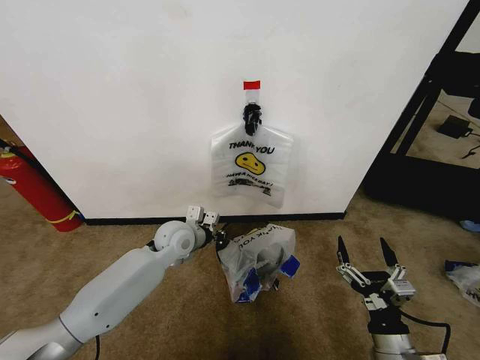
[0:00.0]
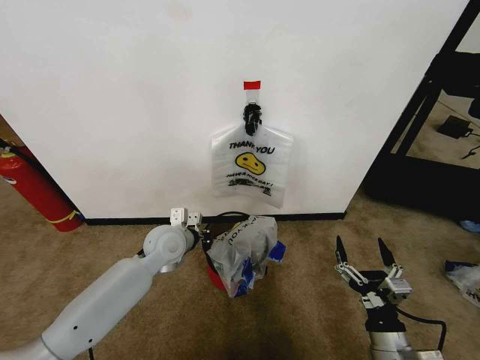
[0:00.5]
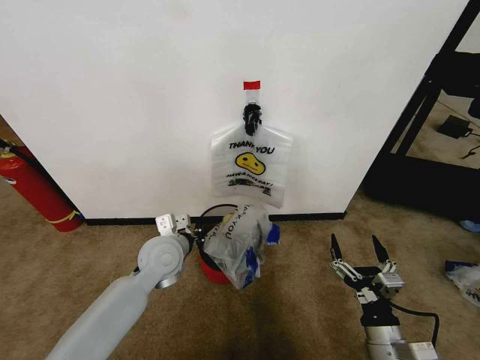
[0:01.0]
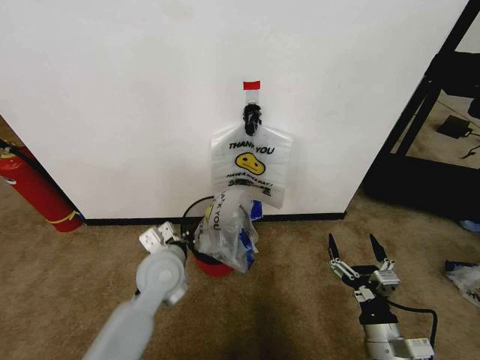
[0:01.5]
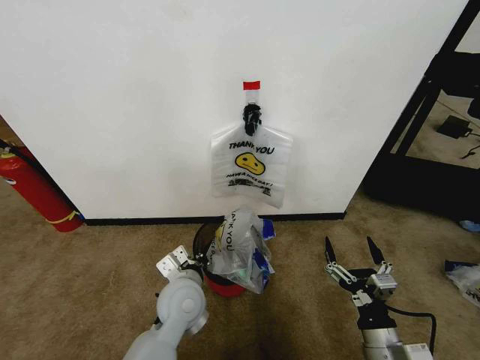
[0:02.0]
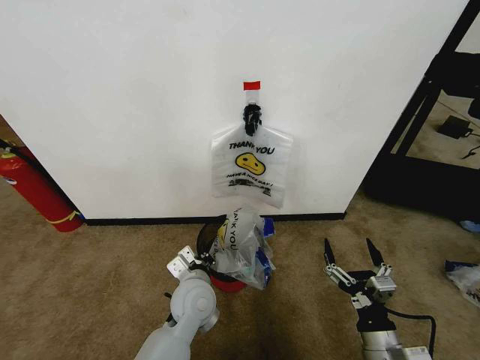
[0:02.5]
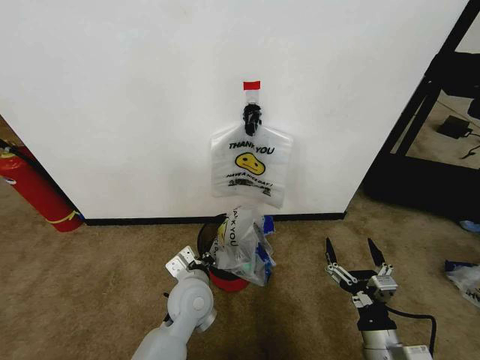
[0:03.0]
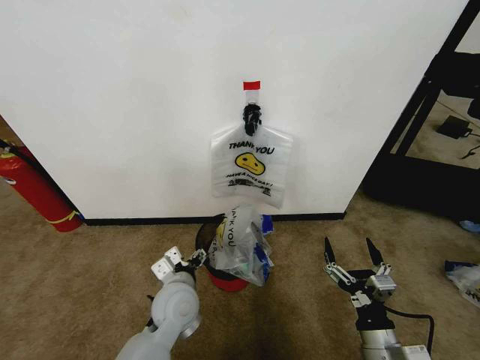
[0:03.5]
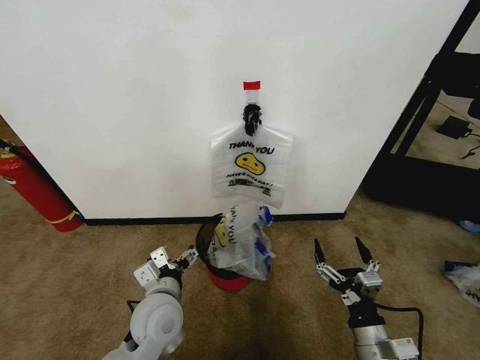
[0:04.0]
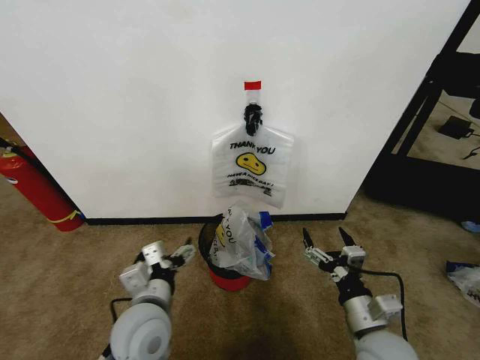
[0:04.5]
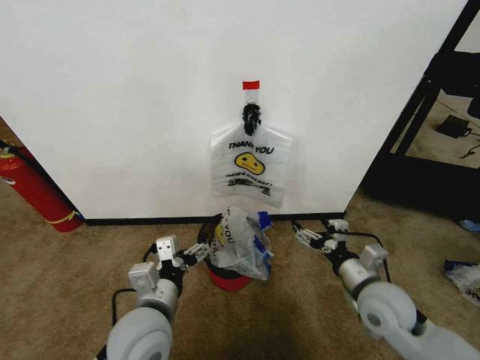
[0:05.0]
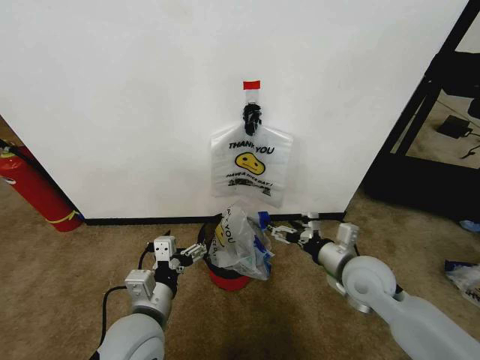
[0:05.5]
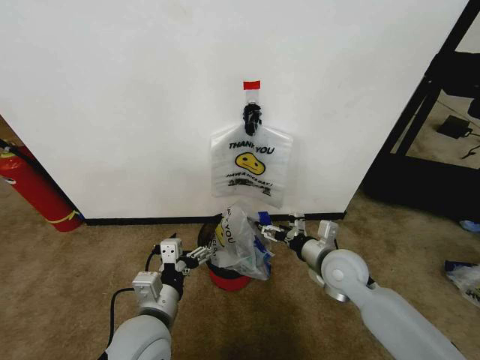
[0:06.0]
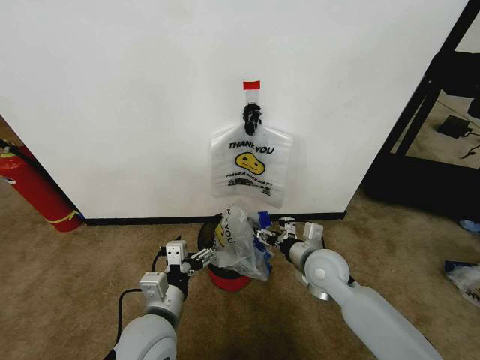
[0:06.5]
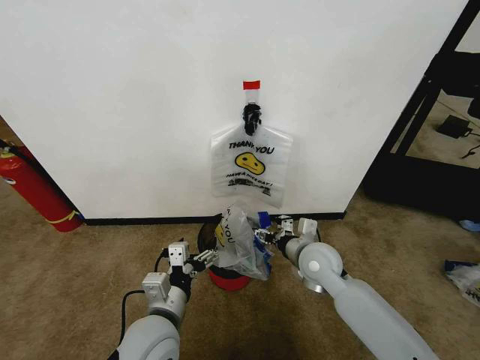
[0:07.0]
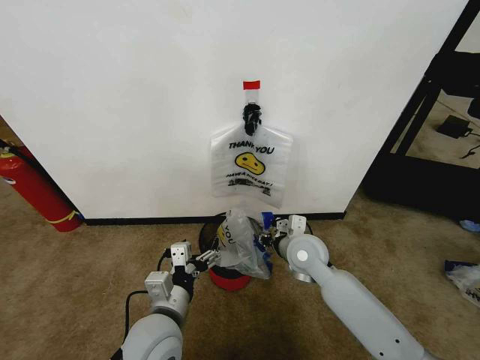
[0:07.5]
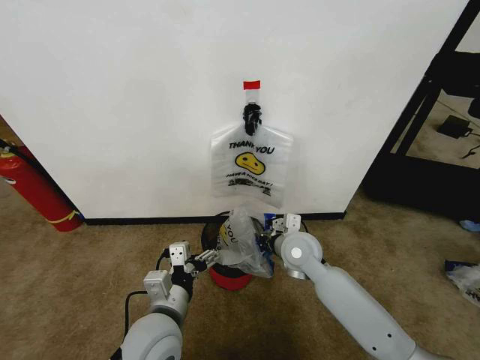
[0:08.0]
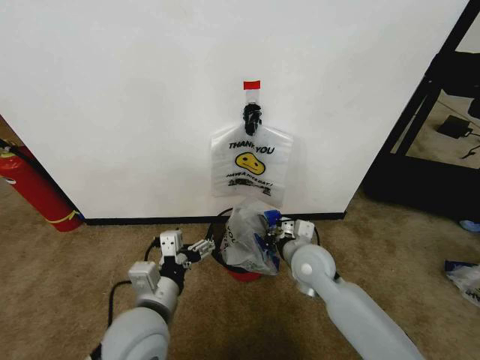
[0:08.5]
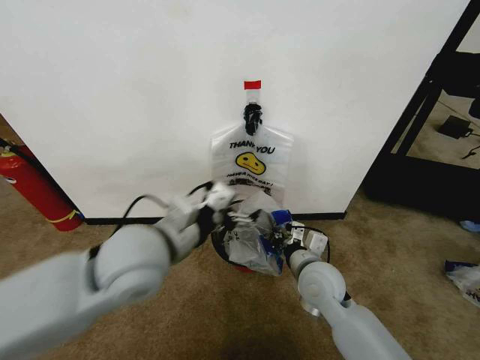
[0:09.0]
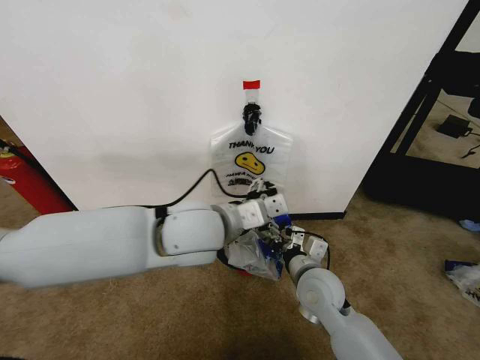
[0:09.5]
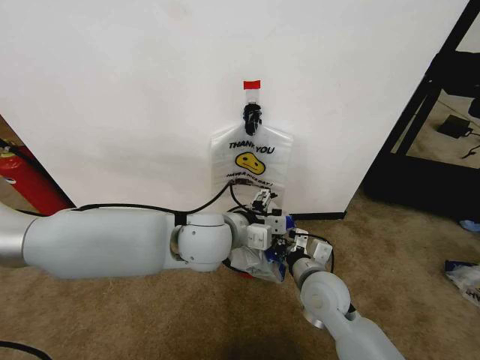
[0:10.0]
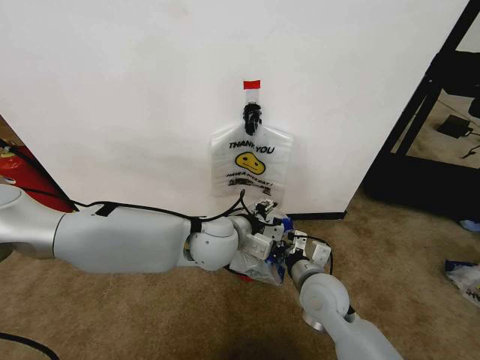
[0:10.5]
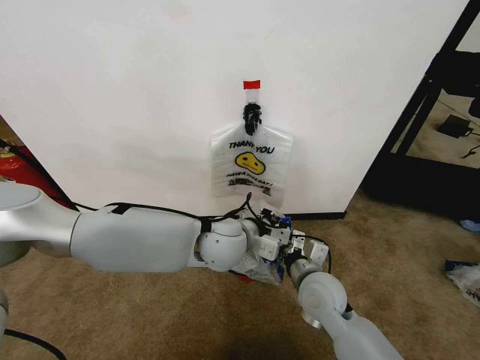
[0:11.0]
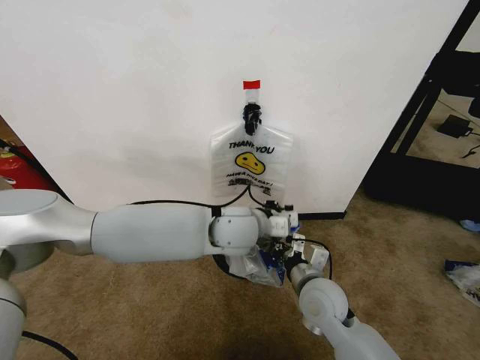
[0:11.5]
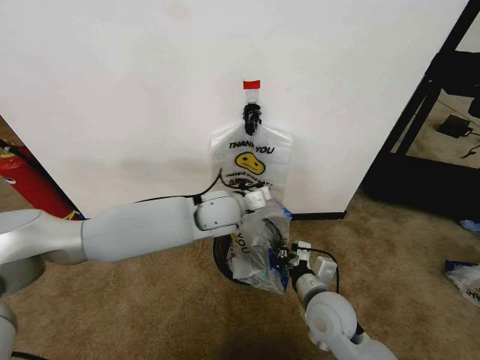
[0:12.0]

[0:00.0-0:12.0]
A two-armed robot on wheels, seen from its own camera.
Task of the whole recording: Pick up the garbage bag from the wall and place it over the trash bin.
0:00.0 to 0:02.0: The left gripper is displaced backward by roughly 15 cm.
0:02.0 to 0:04.0: The left gripper changes place by roughly 5 cm, and opens up.
0:04.0 to 0:06.0: The right gripper travels forward by roughly 20 cm. Meanwhile the left gripper shifts about 5 cm backward.
0:06.0 to 0:08.0: The right gripper is displaced to the left by approximately 10 cm, and closes.
0:08.0 to 0:10.0: The left gripper travels forward, upward and to the right by approximately 20 cm, while the right gripper shifts some 10 cm backward.
0:10.0 to 0:12.0: The left gripper goes about 10 cm forward, and closes up.

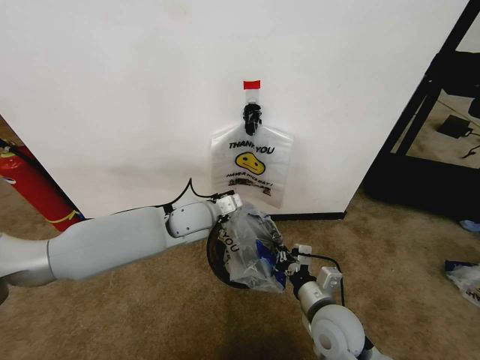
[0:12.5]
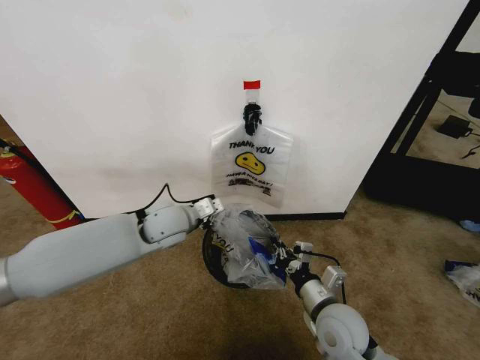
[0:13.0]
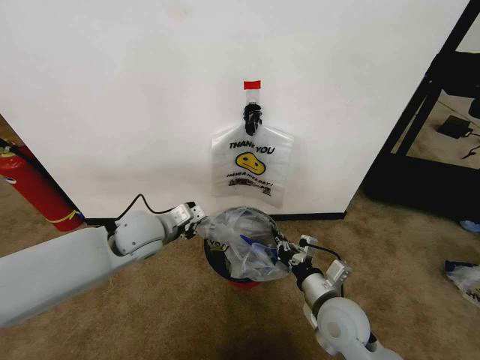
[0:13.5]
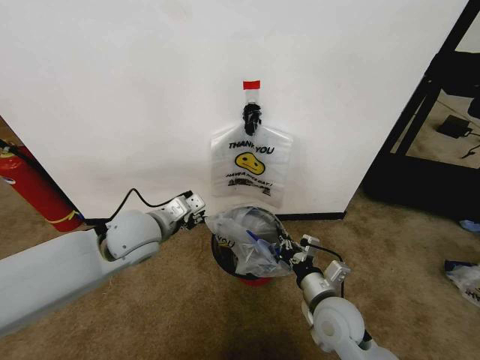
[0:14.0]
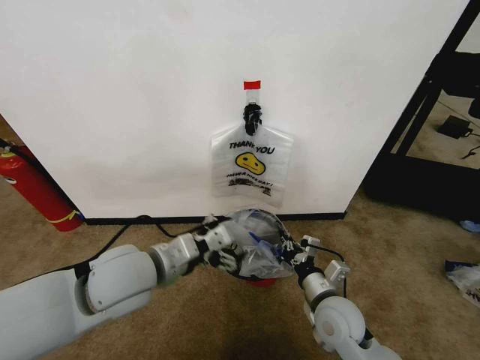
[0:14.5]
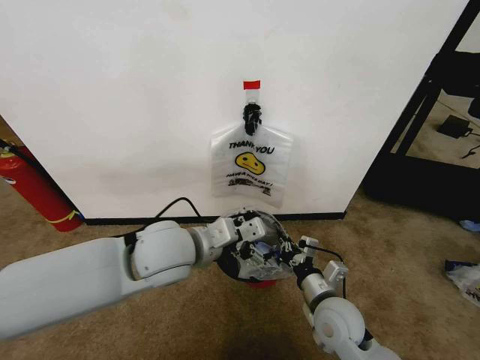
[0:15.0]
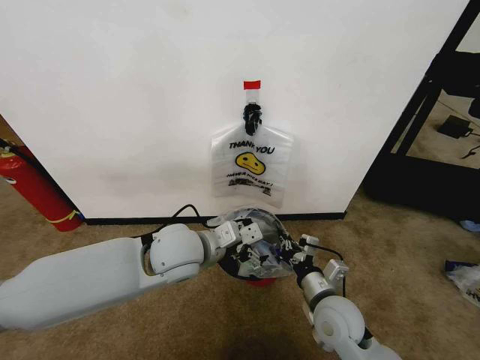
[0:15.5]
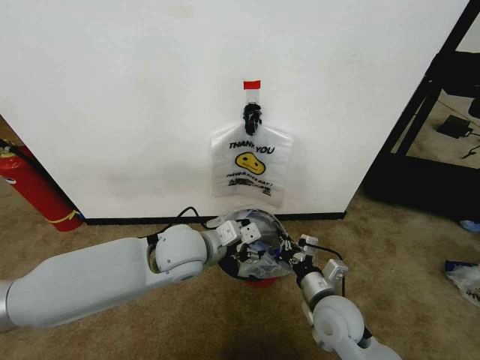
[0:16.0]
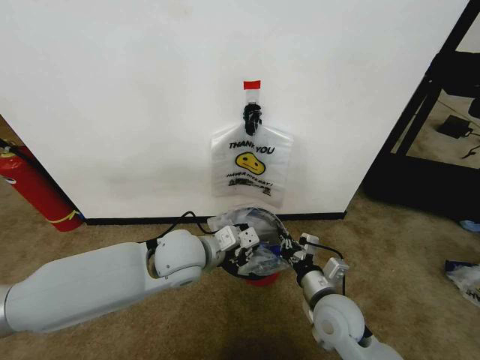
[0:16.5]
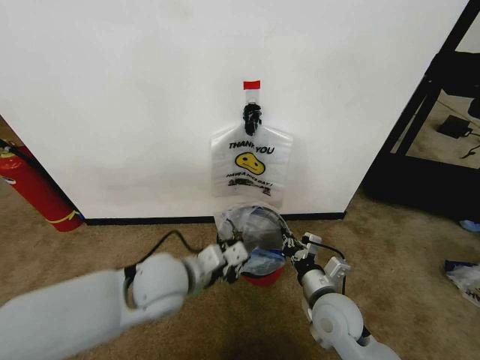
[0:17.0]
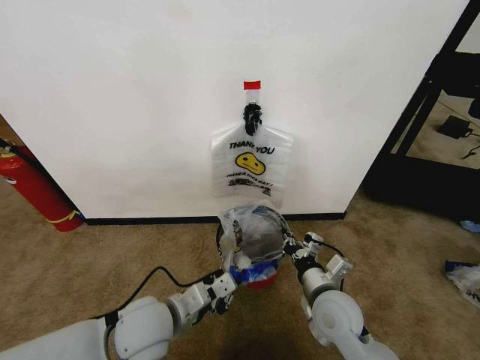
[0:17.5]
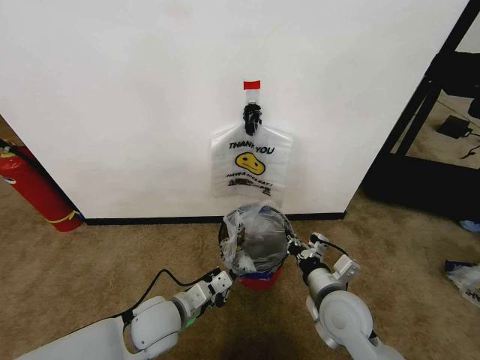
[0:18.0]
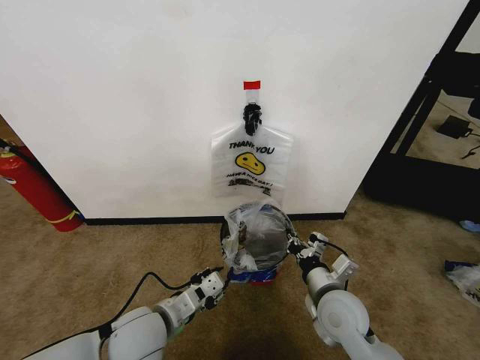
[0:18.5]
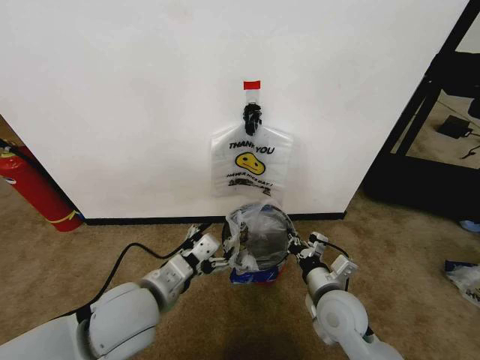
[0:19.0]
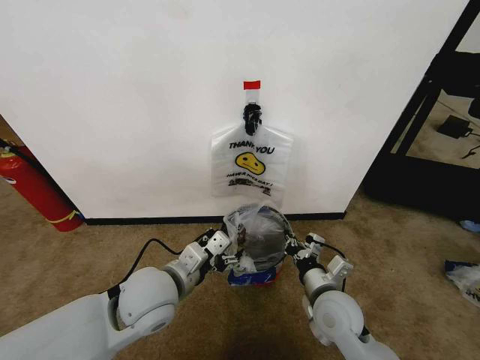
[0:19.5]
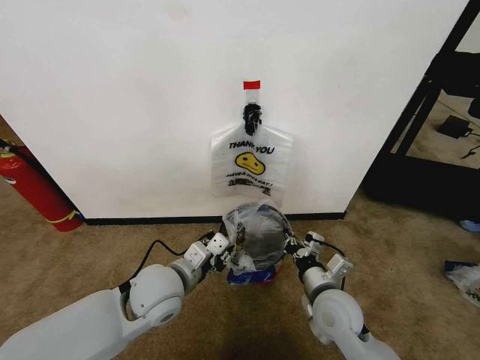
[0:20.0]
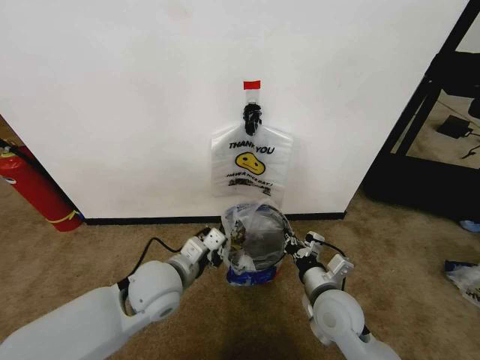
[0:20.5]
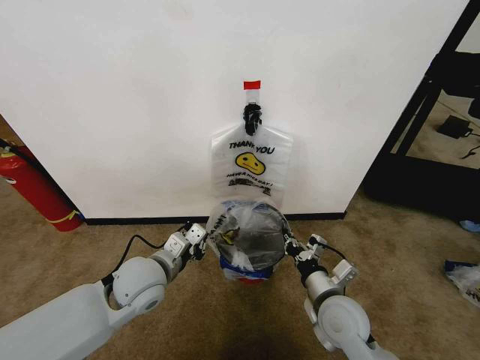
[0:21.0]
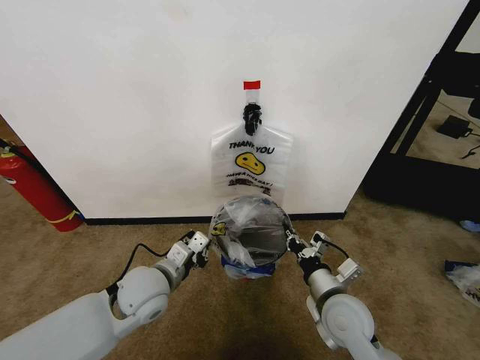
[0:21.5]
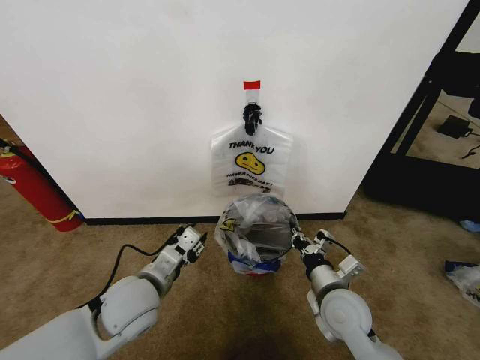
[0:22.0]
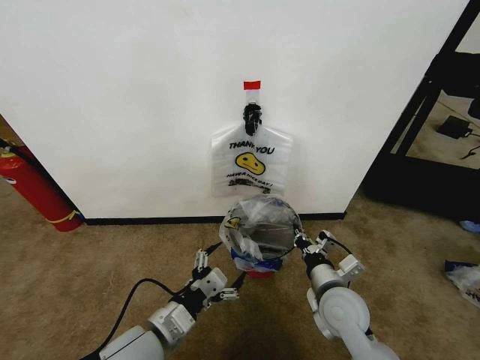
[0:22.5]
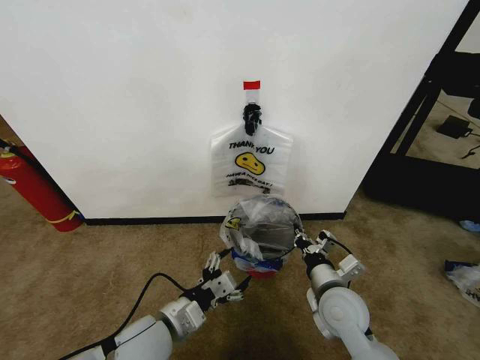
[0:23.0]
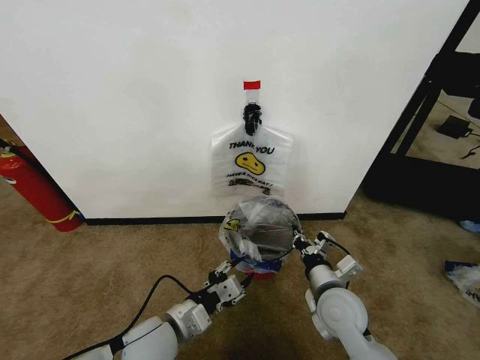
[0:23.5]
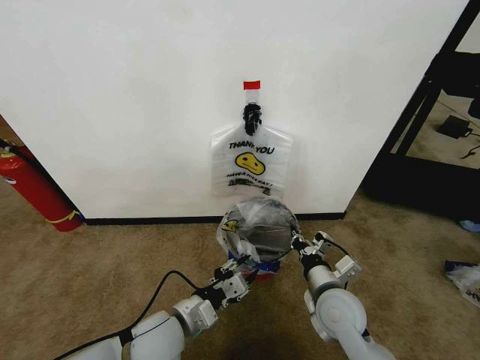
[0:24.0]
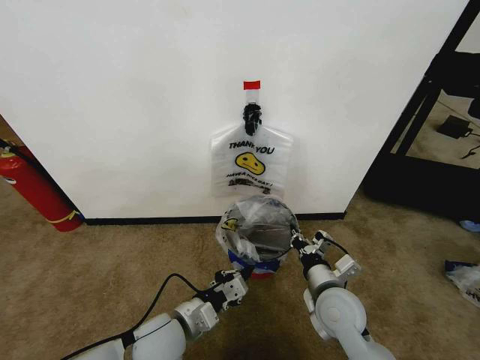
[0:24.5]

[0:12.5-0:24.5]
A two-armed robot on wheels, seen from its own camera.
Task of the whole recording: Pick up the garbage bag from the wall and place it over the trash bin.
0:12.5 to 0:14.5: The left gripper moves backward and to the left, about 15 cm, and opens its fingers.
0:14.5 to 0:16.5: The left gripper heads to the right and forward, covering roughly 10 cm, and closes.
0:16.5 to 0:18.5: The left gripper goes some 15 cm backward, downward and to the left.
0:18.5 to 0:20.5: The left gripper heads forward, covering about 5 cm, and opens, then closes once more.
0:20.5 to 0:22.5: The left gripper shifts about 10 cm backward, and opens up.
0:22.5 to 0:24.5: The left gripper ends up about 5 cm from where it was, and closes.

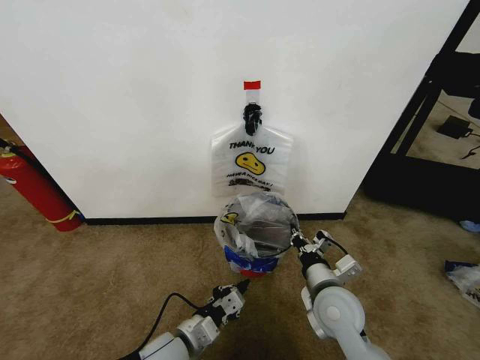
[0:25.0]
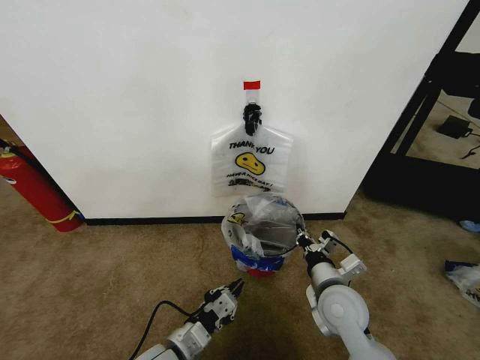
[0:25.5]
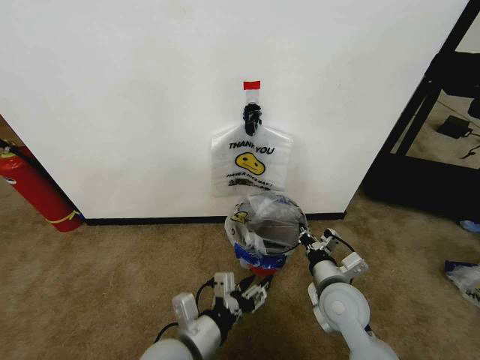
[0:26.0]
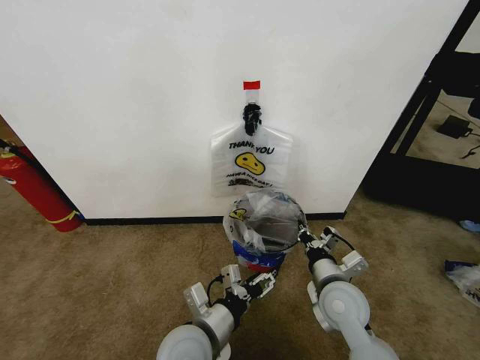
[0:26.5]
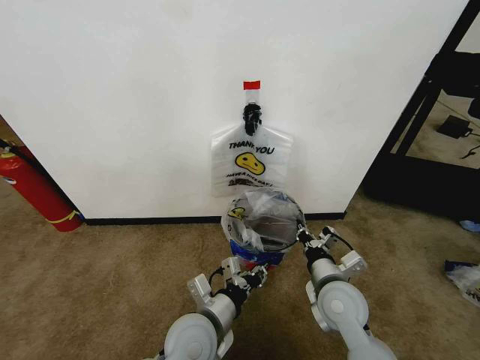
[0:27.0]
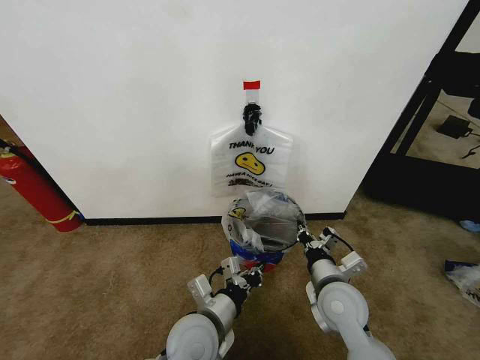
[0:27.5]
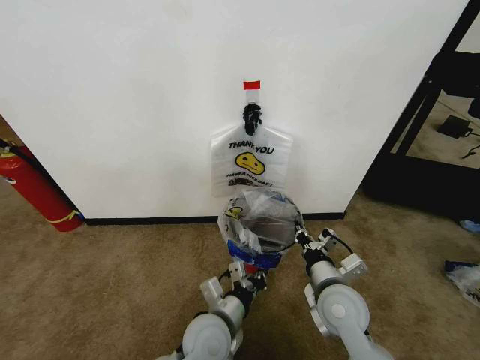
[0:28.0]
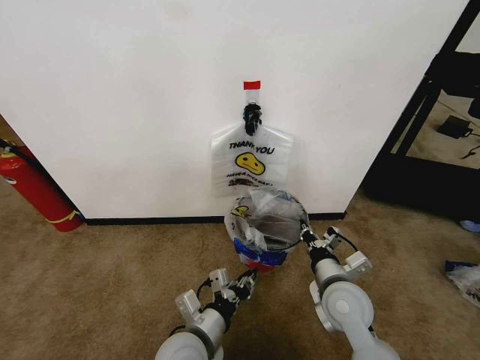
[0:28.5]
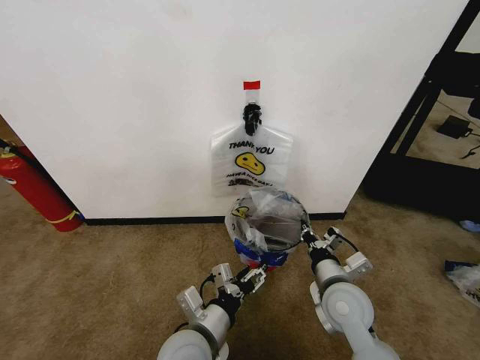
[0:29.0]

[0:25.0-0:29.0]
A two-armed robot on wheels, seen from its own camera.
Task of the whole recording: Pick up the garbage bag from the wall and place it over the trash bin.
0:25.0 to 0:27.0: The left gripper shifts about 10 cm to the right and upward, and opens, then closes again.
0:27.0 to 0:29.0: The left gripper opens up.
